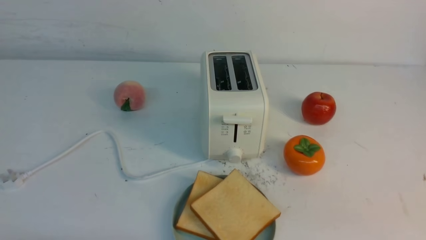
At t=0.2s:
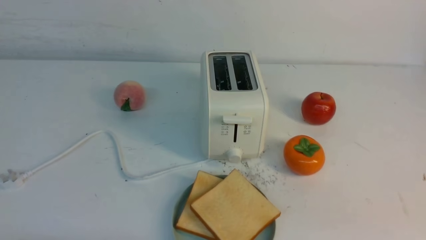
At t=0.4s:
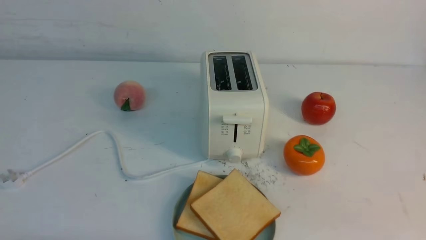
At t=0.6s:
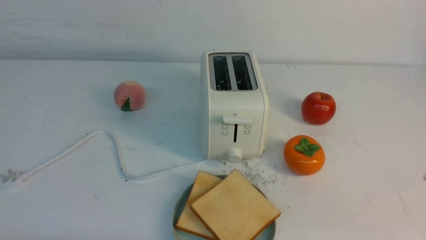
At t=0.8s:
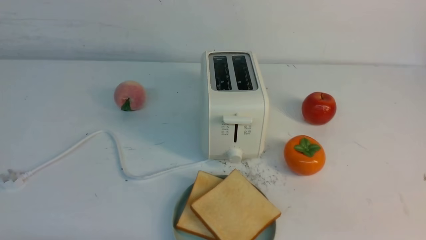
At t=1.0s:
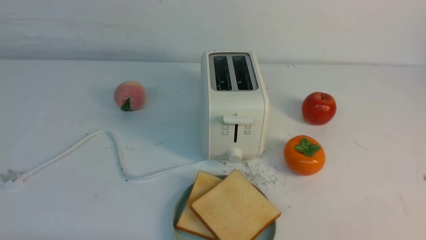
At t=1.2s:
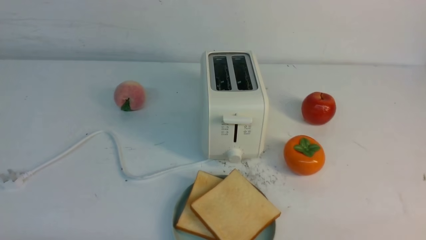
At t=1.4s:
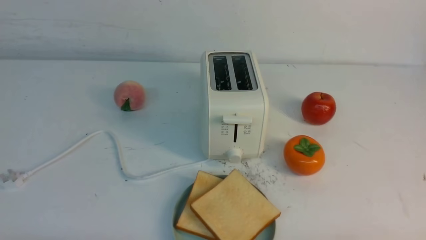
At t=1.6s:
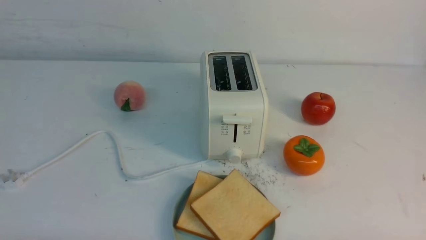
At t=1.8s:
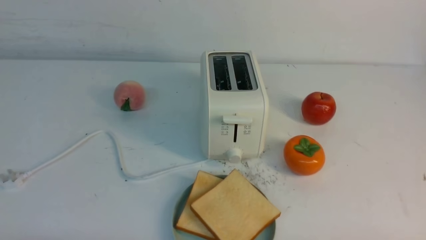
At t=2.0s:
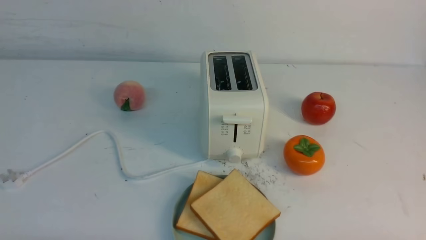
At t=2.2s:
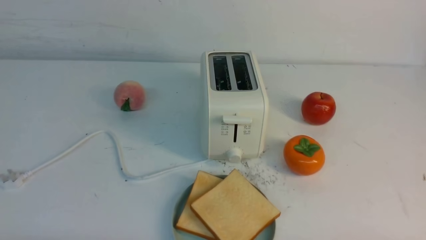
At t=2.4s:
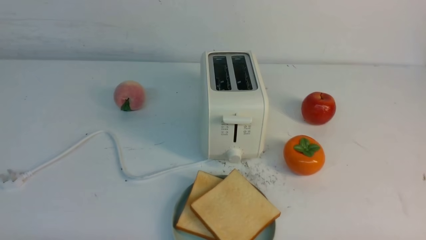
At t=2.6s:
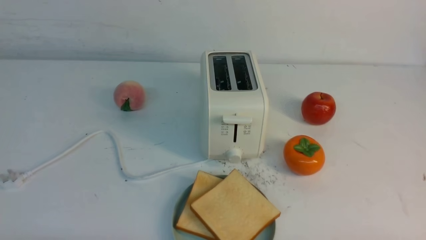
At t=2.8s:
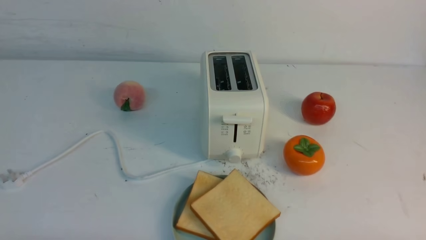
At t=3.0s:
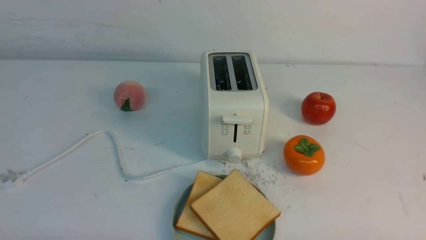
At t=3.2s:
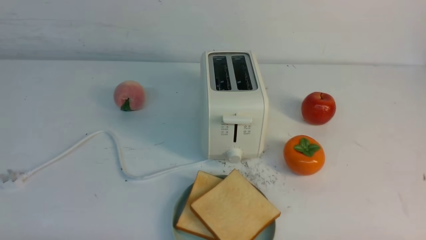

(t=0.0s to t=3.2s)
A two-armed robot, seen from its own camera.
Task of the whole recording: take toasted bread from bread machine on white table place on plate.
t=1.6s - t=3.2s: Both grippers stay about where they are.

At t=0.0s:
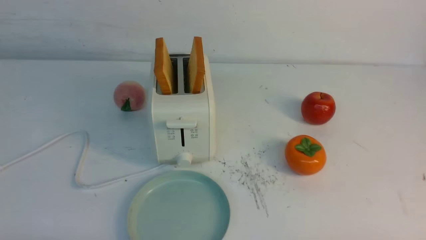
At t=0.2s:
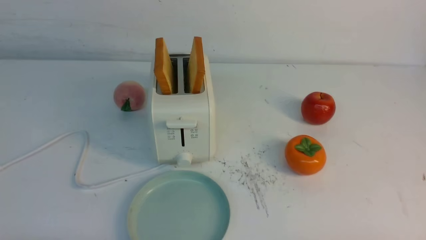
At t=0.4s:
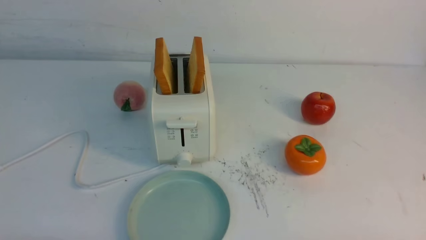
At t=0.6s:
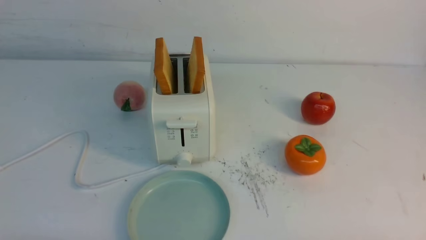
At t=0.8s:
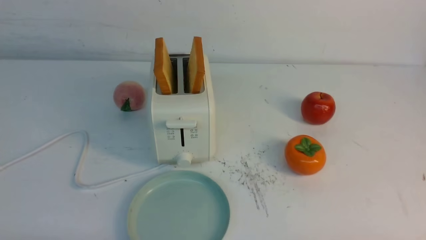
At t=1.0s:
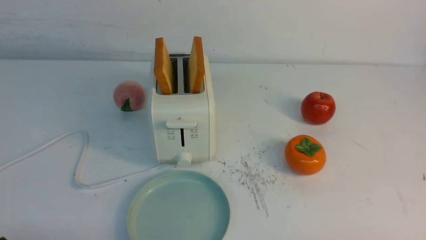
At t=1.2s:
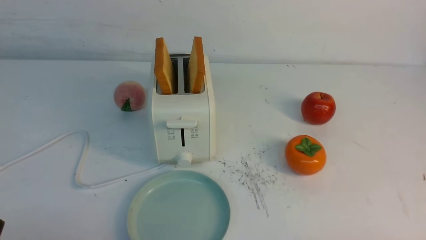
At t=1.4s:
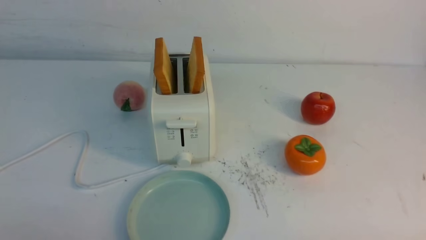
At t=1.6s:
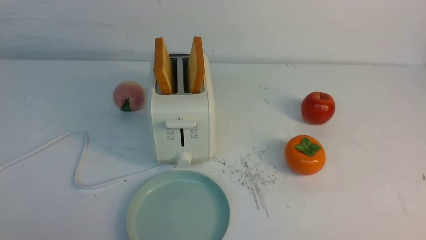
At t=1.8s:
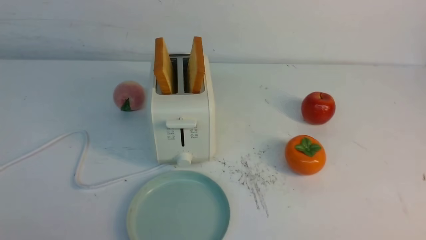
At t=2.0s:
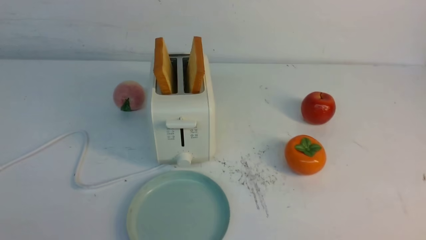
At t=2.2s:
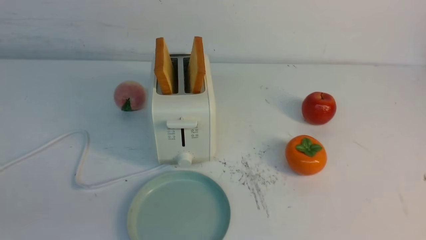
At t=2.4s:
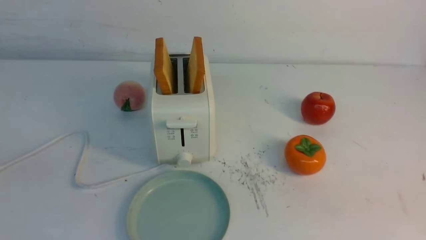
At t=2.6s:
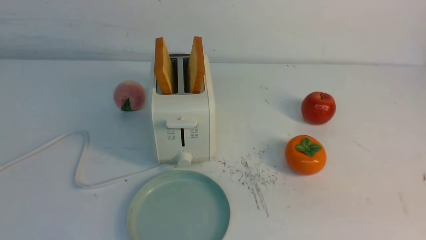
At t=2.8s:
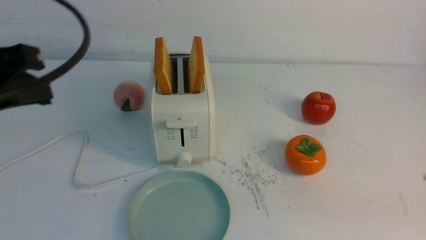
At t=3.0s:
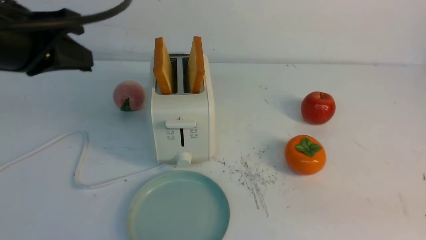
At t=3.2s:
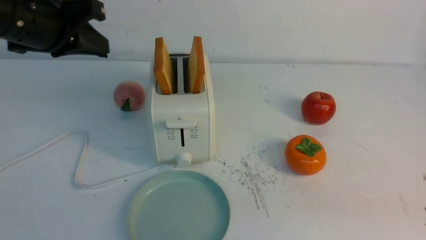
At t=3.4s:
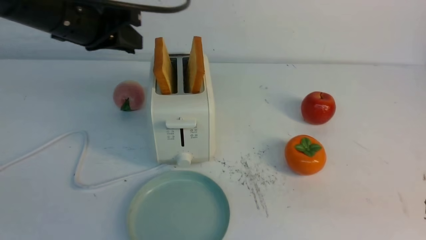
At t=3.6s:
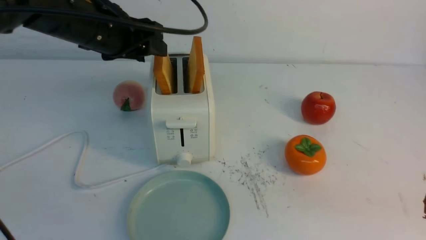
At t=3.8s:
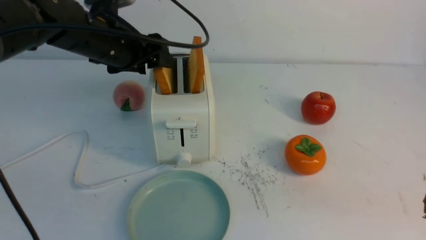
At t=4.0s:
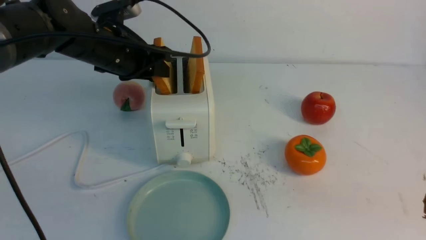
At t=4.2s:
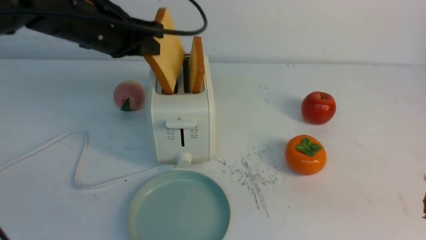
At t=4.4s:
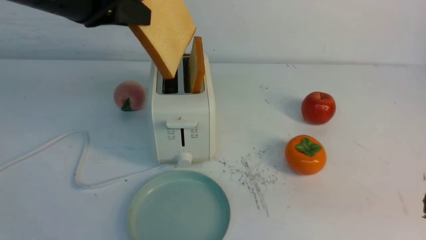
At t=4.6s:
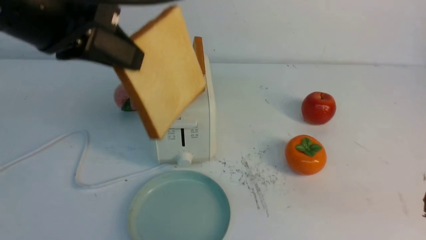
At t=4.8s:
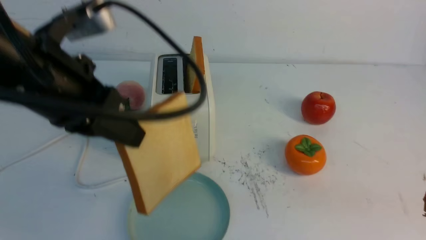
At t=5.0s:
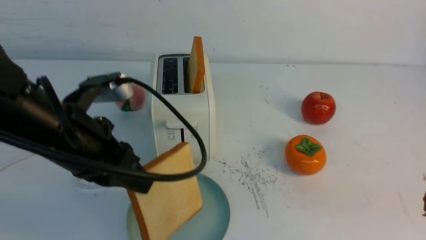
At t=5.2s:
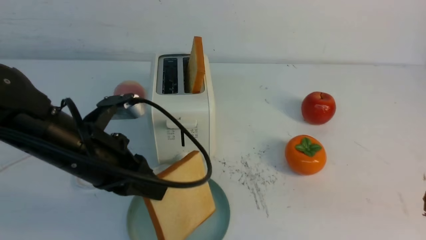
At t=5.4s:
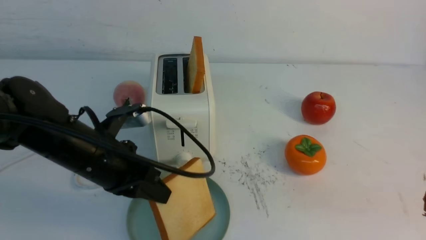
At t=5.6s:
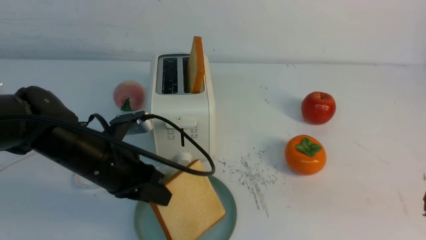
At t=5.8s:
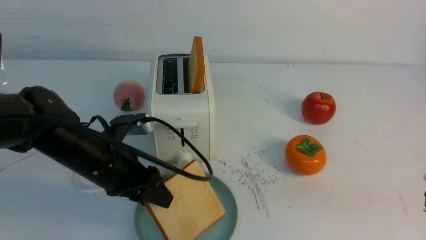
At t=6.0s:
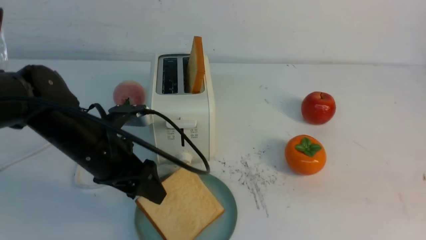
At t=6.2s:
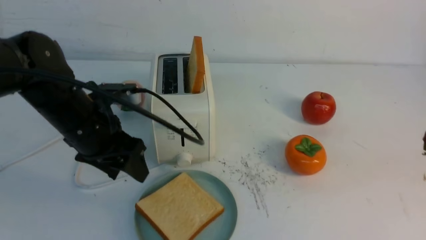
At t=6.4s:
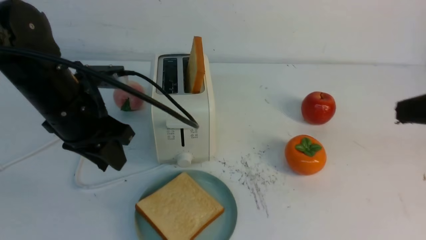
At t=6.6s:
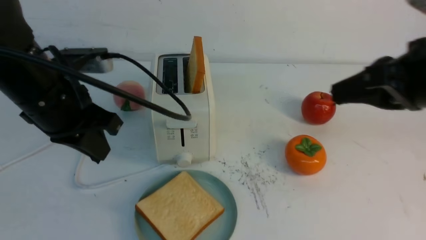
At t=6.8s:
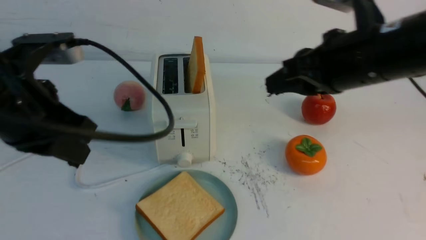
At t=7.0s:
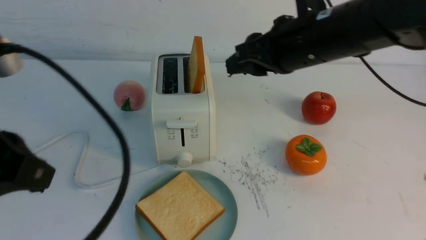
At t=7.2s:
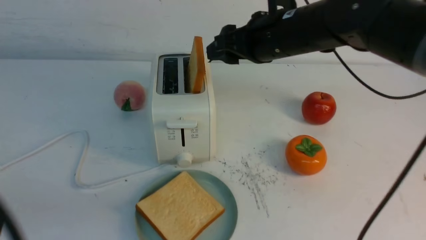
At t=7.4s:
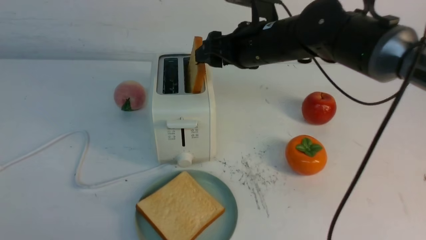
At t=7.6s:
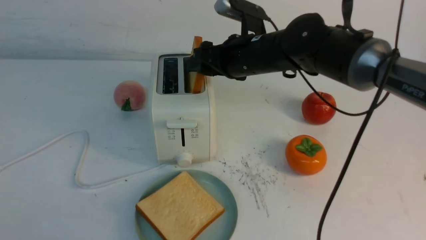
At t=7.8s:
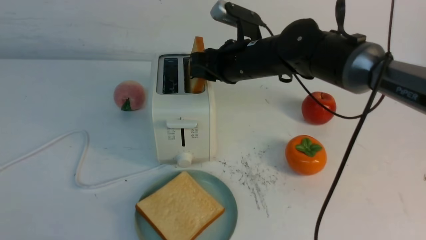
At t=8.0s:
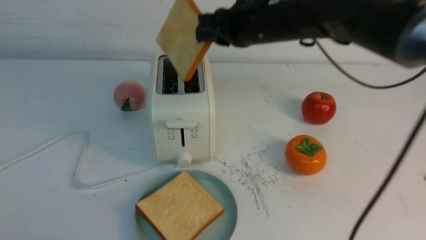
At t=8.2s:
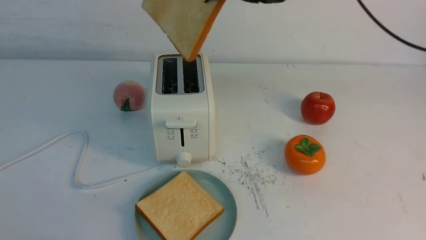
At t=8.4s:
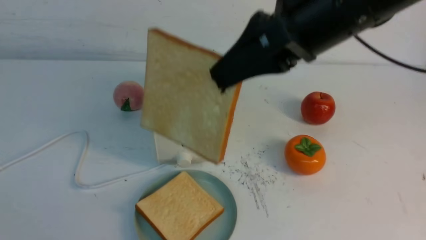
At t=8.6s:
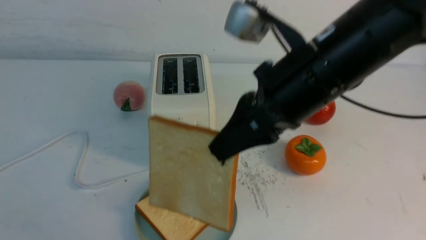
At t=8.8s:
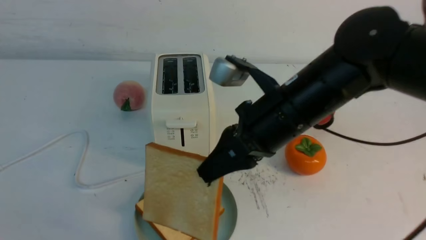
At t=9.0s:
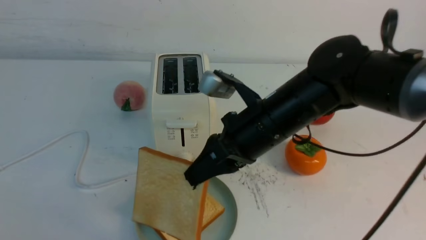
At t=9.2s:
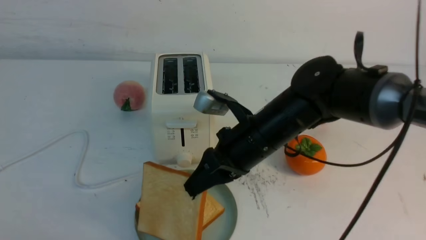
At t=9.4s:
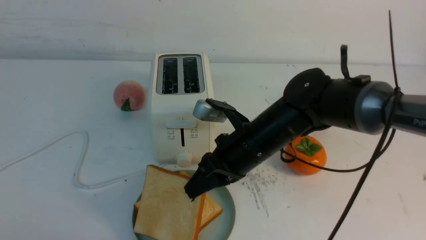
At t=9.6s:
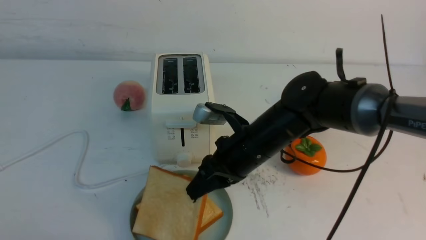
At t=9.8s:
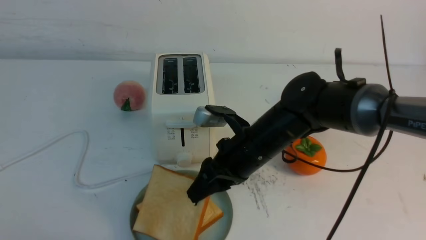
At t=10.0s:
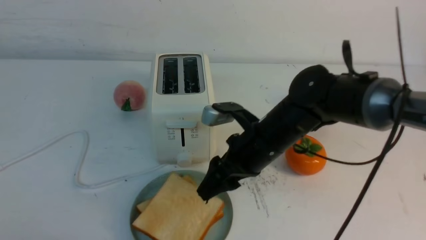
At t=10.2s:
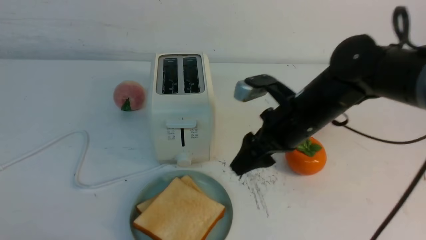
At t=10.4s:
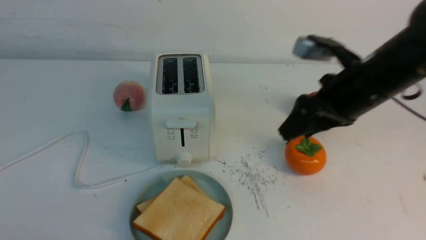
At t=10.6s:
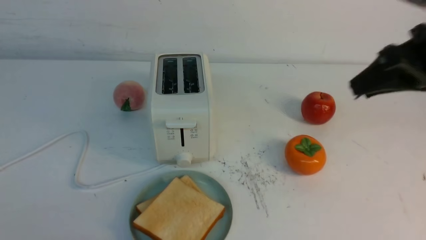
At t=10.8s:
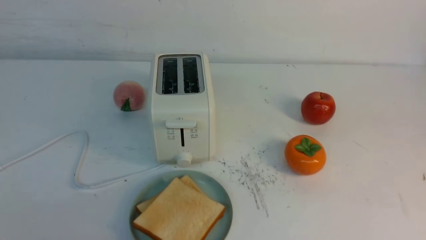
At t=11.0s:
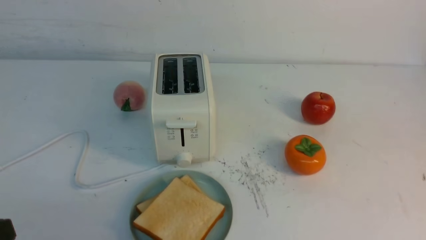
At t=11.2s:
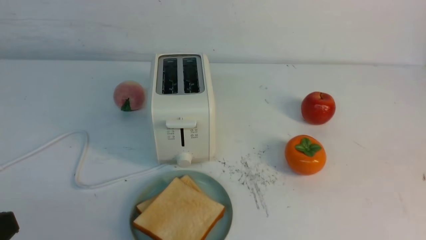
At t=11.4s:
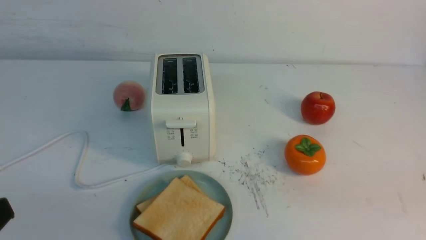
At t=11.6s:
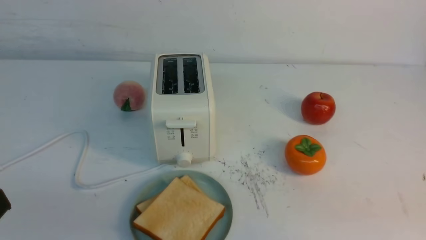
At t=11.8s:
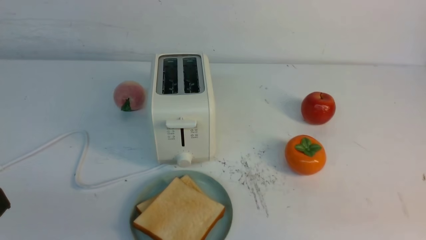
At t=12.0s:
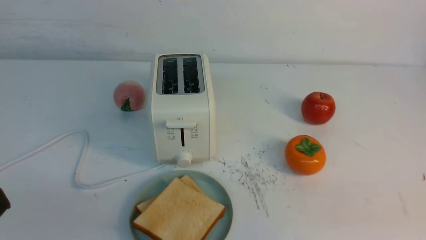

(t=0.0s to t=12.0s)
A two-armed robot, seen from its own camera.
Task of the whole recording: take toasted bread from bread machine on white table place on plate.
Step, t=0.0s - t=4.2s: use the left arm to take out a slice of bread.
Step, t=4.4s - t=6.2s: use the left arm to put a slice of bread into the empty plate.
Step, t=6.6s - t=8.2s: use the right arm to take out a slice of bread.
Step, t=8.4s - t=10.0s: use the right arm to put a slice of bread into the plate.
t=1.6s - t=3.0s: The left gripper travels forward and upward by some 30 cm, and closes.
t=3.0s - t=4.4s: The left gripper goes approximately 5 cm to the right, goes forward and returns, approximately 15 cm each way, and opens, then closes again.
t=4.4s - t=6.0s: The left gripper goes approximately 20 cm downward, and opens its fingers.
t=6.0s - t=7.6s: The left gripper goes some 30 cm backward, and closes up. Meanwhile the right gripper moves forward and to the left, roughly 35 cm, and opens up.
t=7.6s - t=9.0s: The right gripper moves backward, roughly 15 cm, travels upward and back again, approximately 15 cm each way, and closes.
t=9.0s - t=10.4s: The right gripper shifts roughly 15 cm to the right and upward, and opens.
t=10.4s - t=12.0s: The right gripper goes about 25 cm backward and to the right, and closes up.

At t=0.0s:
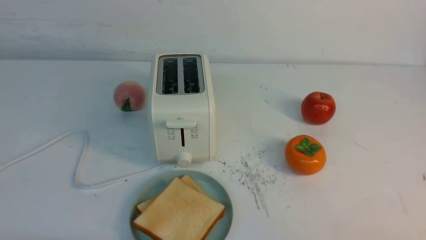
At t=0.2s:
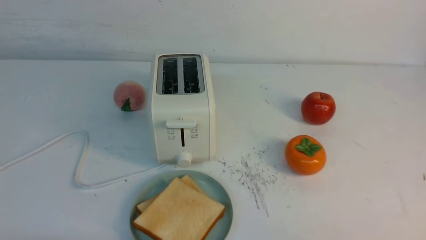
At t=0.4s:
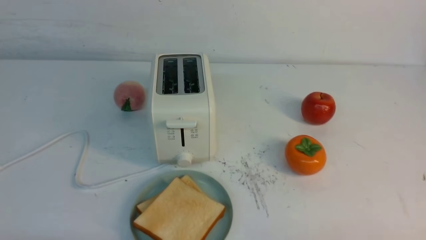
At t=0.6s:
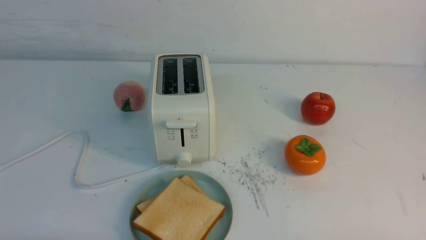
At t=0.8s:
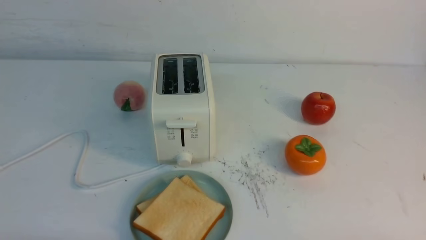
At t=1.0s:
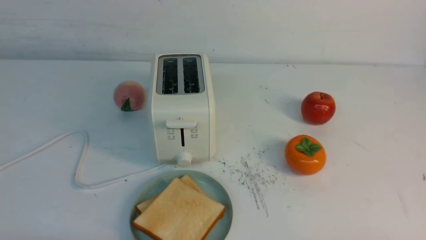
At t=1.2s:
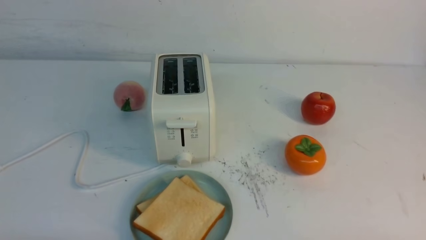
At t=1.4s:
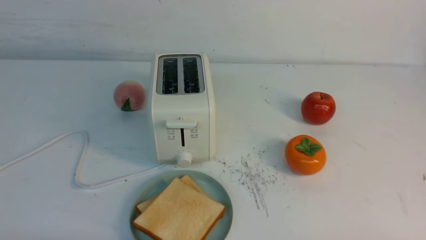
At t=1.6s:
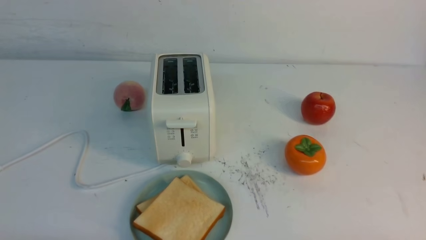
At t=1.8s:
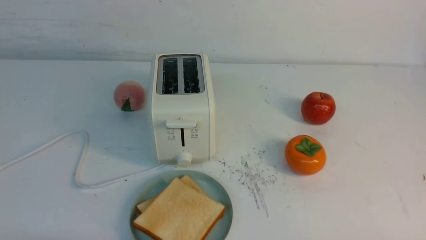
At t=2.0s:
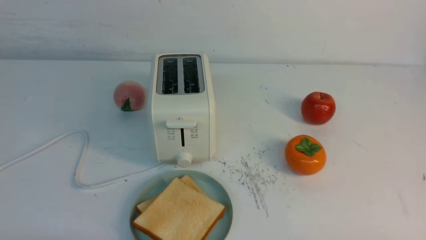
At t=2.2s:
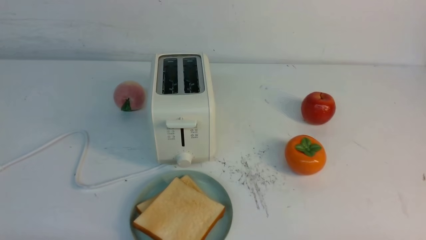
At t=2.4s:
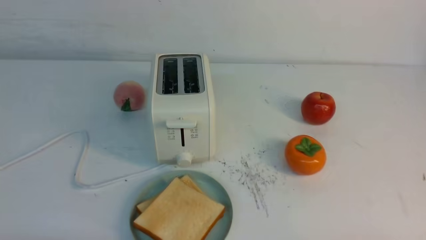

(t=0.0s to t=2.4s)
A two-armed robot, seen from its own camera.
Task of the whole recording: take toasted bread from bread machine on white table place on plate.
t=1.2s - t=2.4s: Both grippers stay about where they are.
